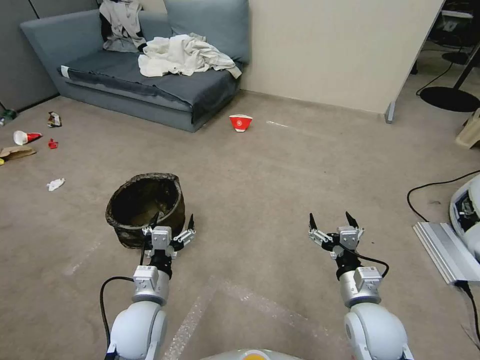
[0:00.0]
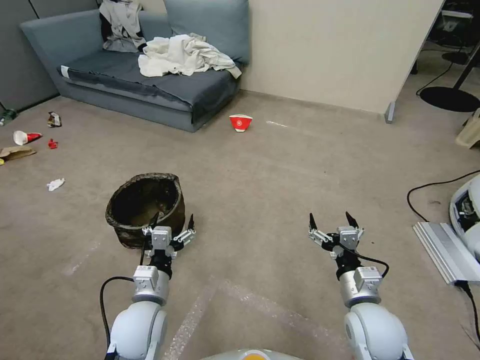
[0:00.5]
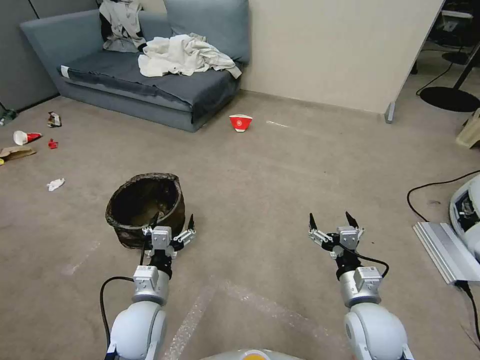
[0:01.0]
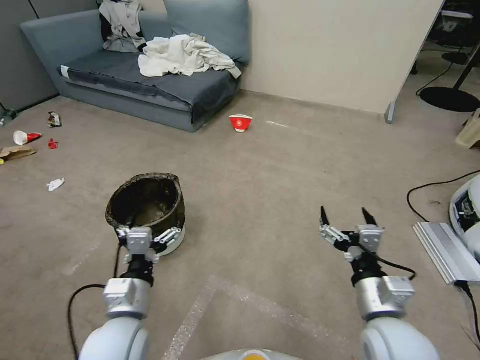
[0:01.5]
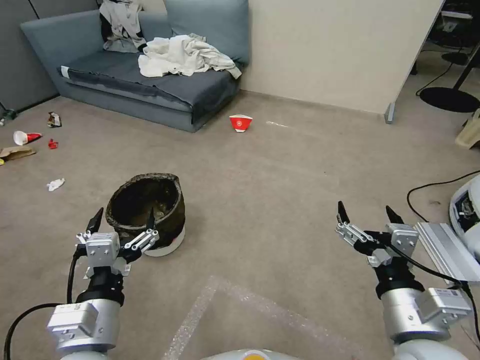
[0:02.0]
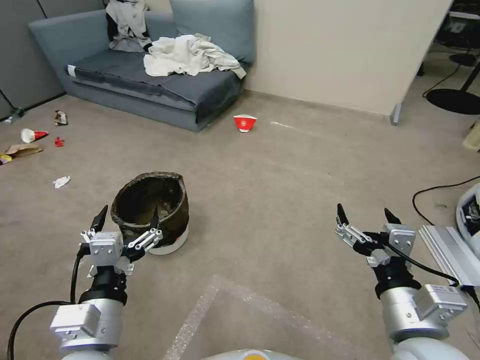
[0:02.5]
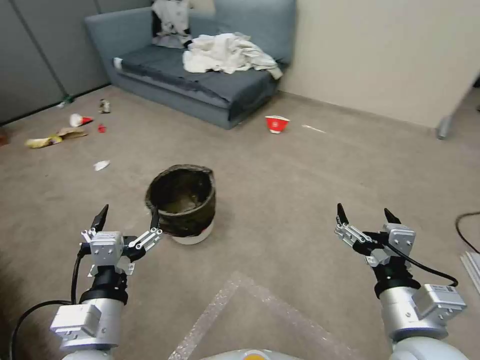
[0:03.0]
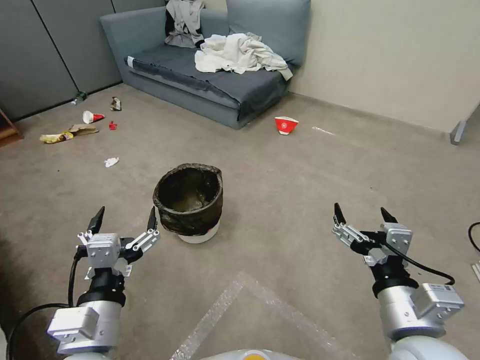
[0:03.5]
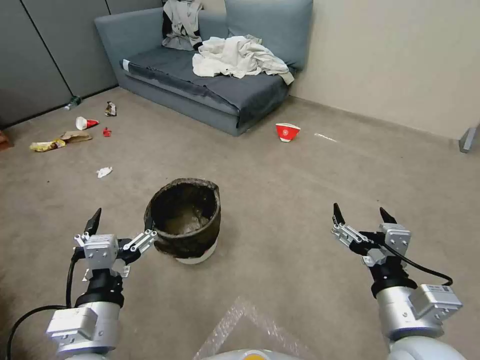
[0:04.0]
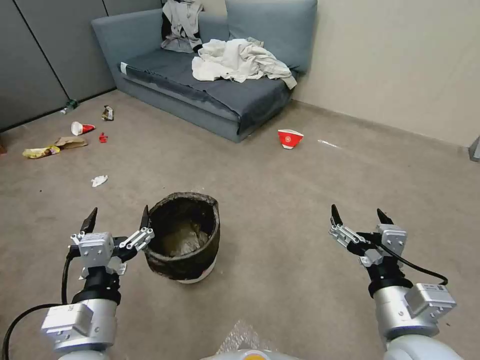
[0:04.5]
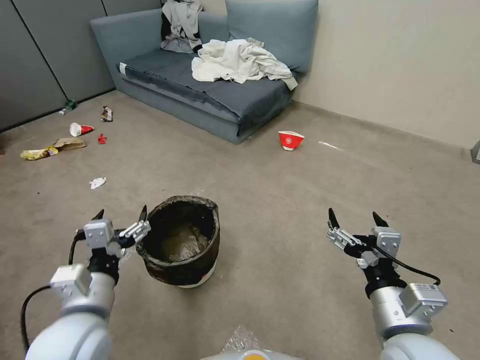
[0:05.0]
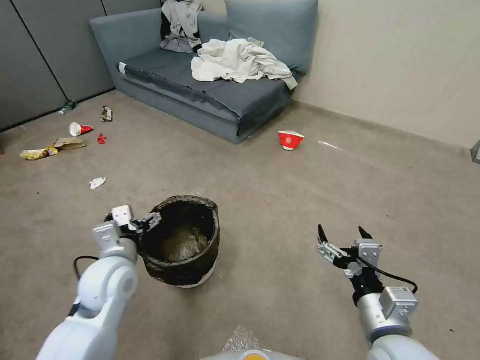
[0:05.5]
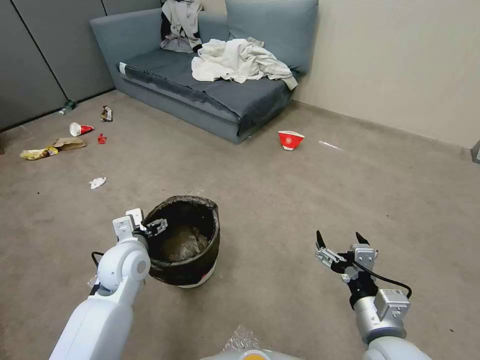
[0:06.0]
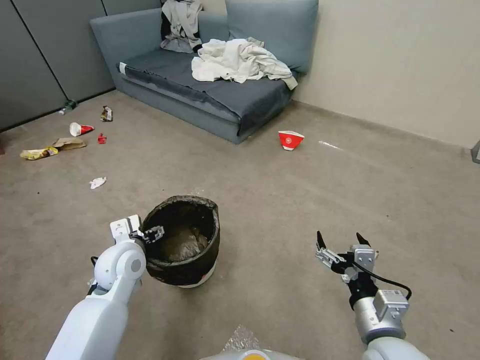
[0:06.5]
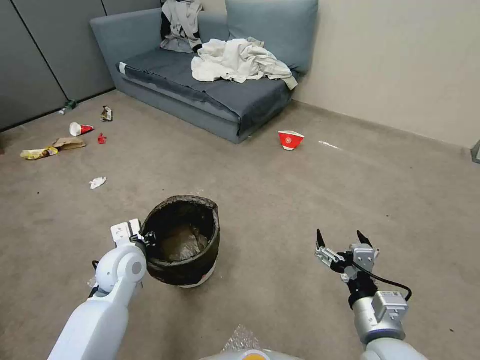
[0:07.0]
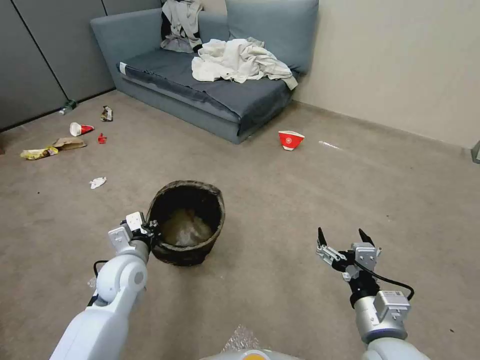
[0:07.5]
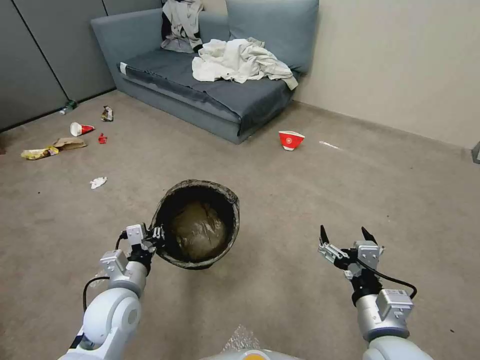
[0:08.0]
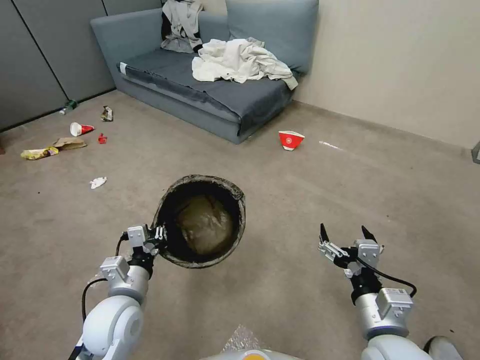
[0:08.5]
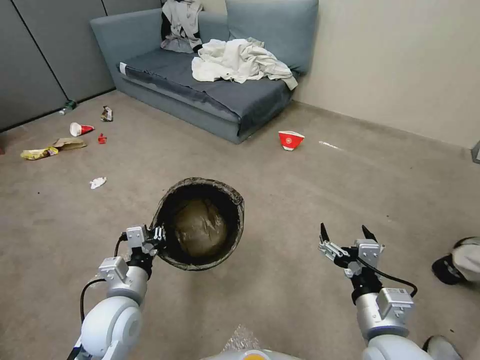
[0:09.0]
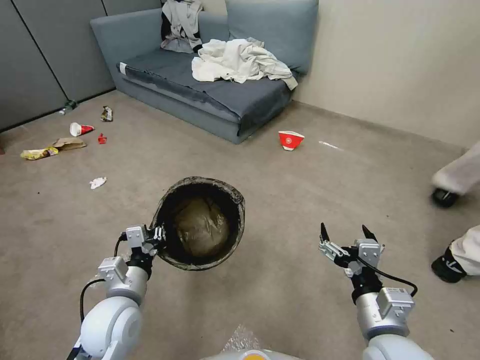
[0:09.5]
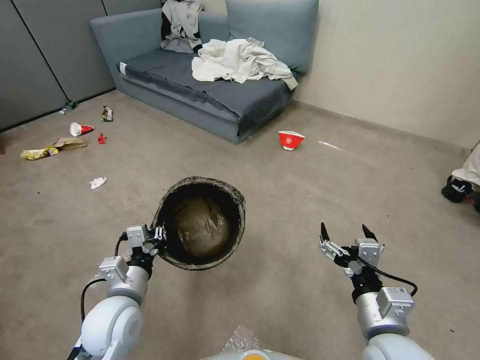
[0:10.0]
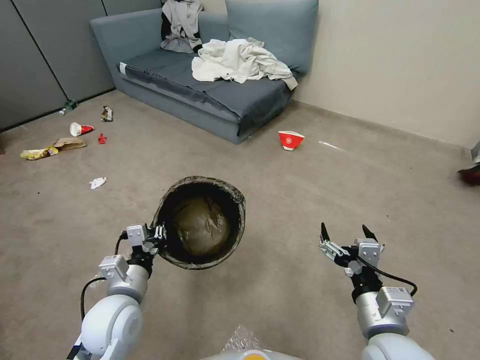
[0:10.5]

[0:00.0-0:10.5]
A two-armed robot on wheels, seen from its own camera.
Task of the whole recording: Pick up the trash can from the floor.
0:04.0 to 0:06.5: The right gripper shifts some 10 cm downward. The left gripper heads forward and downward, covering approximately 20 cm.
0:06.5 to 0:08.5: The left gripper shifts some 10 cm backward, and closes its fingers.
0:08.5 to 0:10.5: Both grippers stay about where they are.

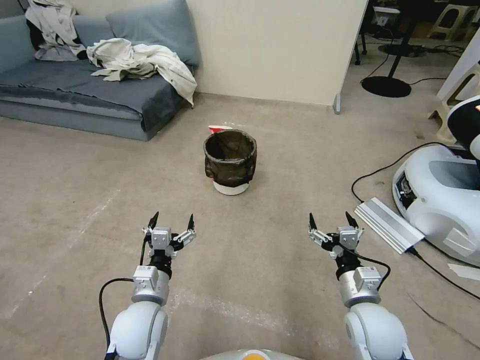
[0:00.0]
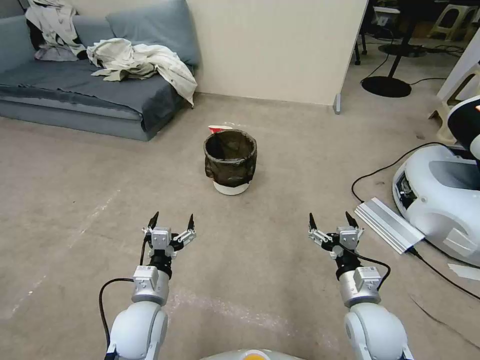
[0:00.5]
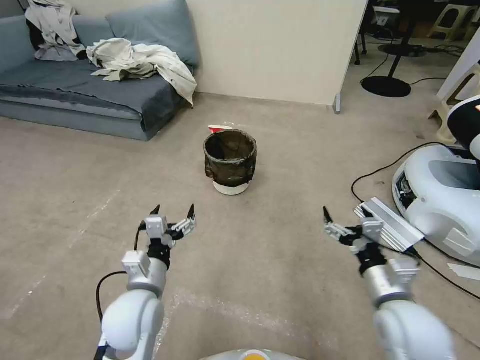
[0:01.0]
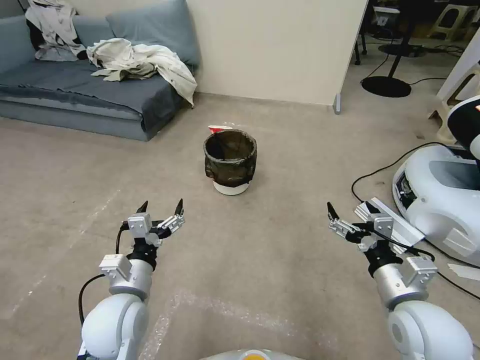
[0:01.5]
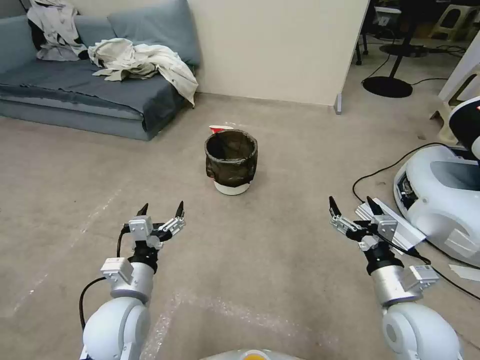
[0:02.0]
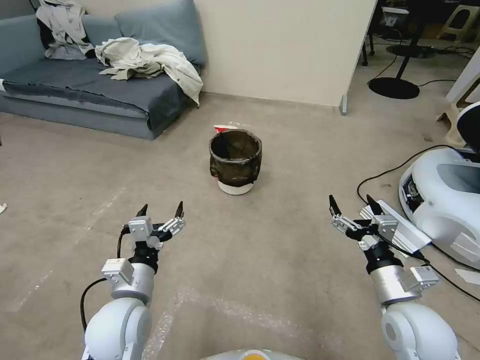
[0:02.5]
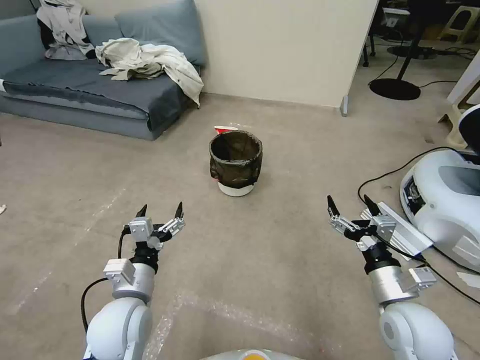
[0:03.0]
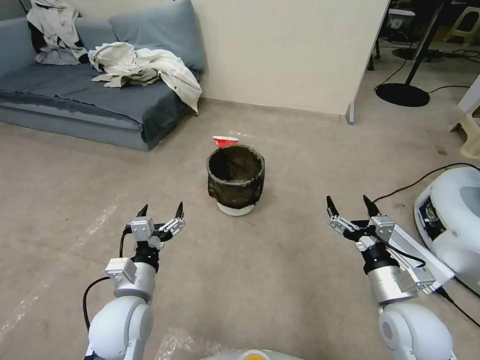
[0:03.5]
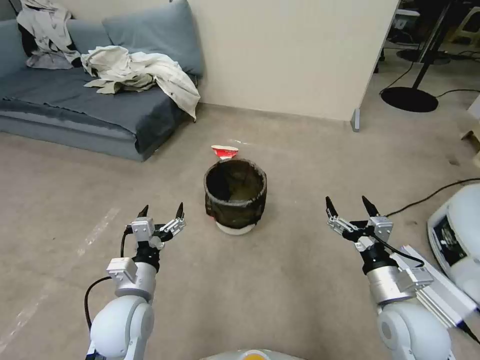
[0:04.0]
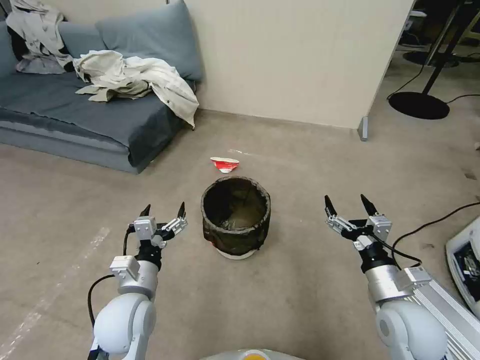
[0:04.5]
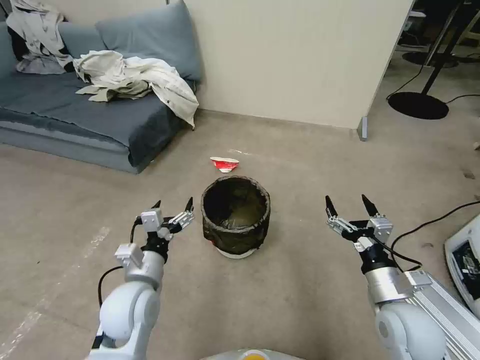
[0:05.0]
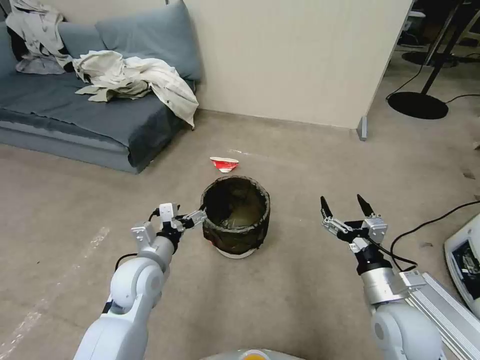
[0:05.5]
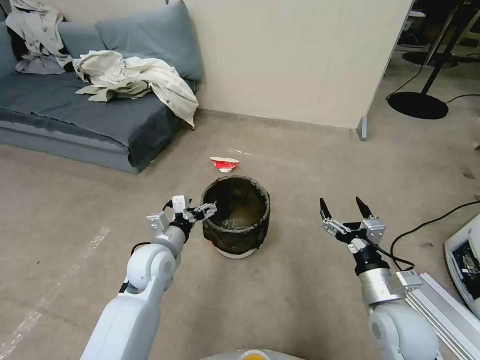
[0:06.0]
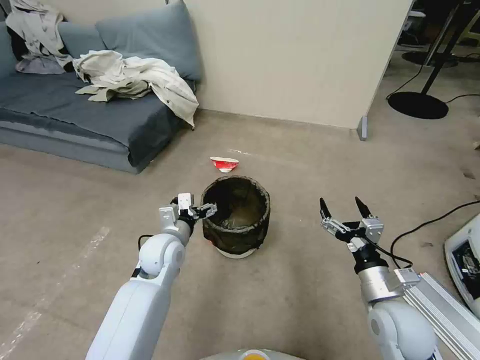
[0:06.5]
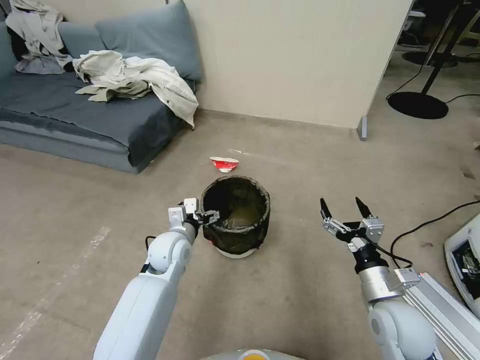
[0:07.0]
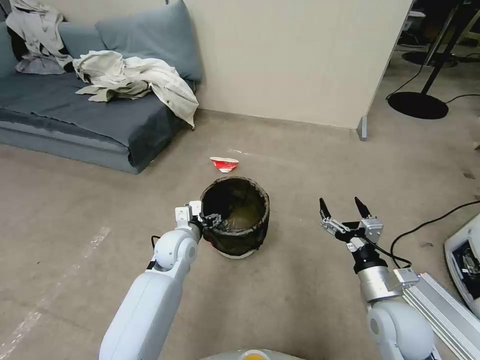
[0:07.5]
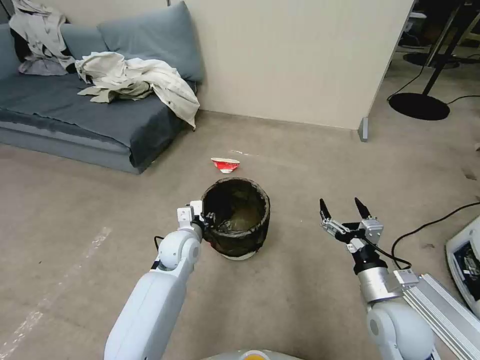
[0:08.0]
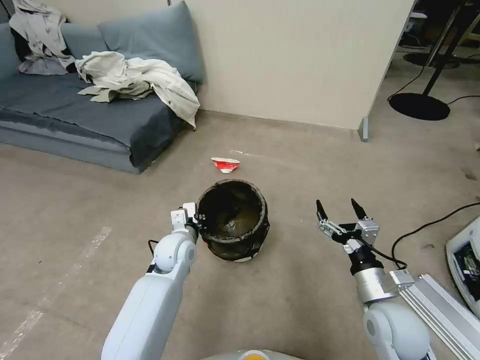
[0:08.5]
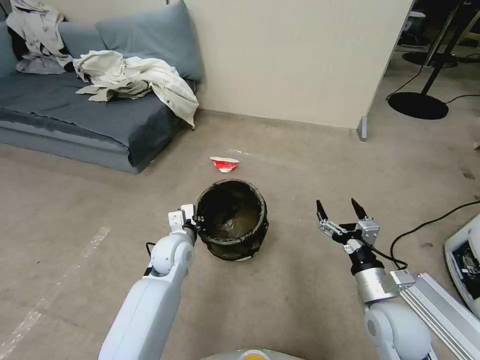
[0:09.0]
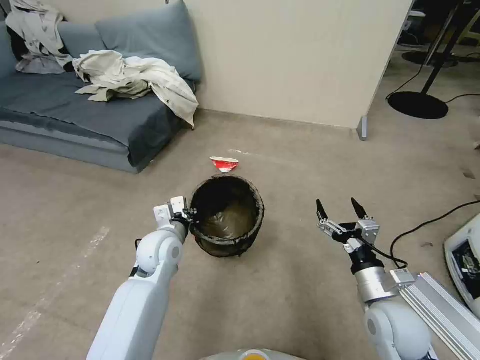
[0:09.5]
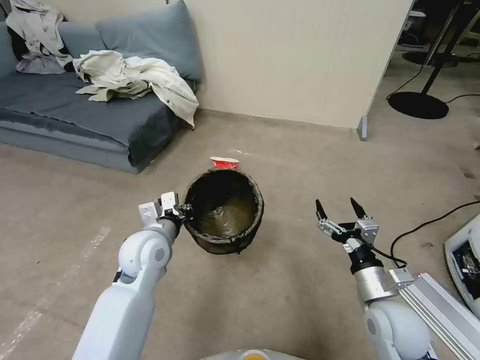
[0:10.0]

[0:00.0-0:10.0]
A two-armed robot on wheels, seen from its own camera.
Task of the whole recording: Pick up the trash can from the floor.
0:04.0 to 0:06.0: The left gripper travels forward by some 10 cm.
0:06.0 to 0:08.0: The left gripper ends up about 10 cm from where it was, and closes.
0:08.0 to 0:10.0: The left gripper goes about 10 cm upward and to the left.
